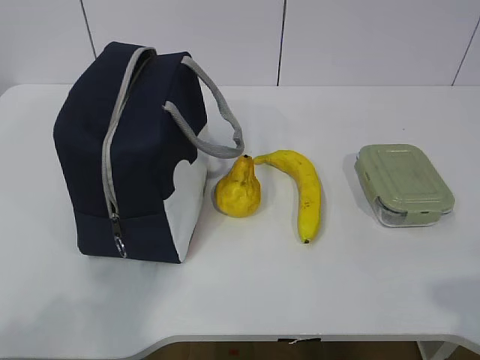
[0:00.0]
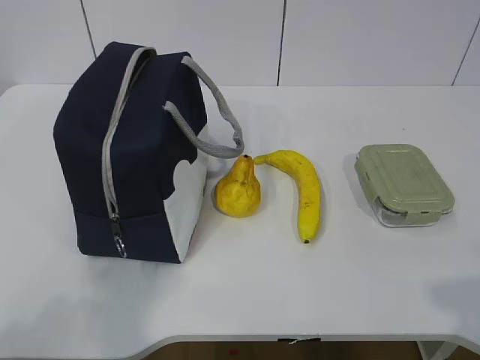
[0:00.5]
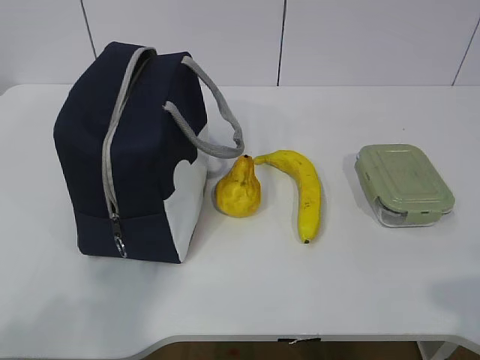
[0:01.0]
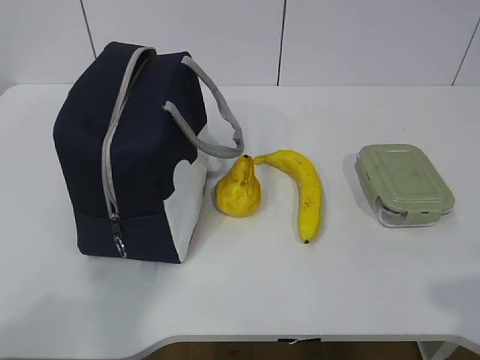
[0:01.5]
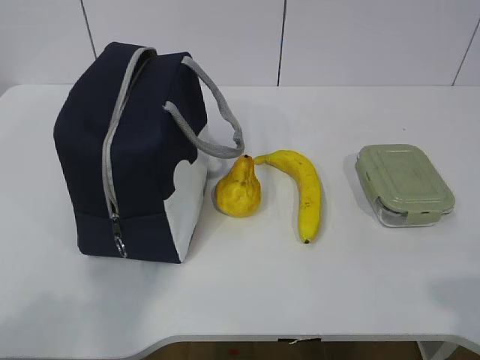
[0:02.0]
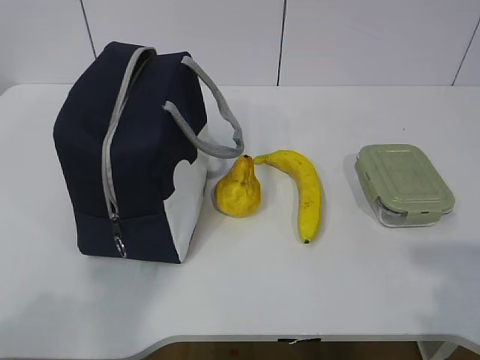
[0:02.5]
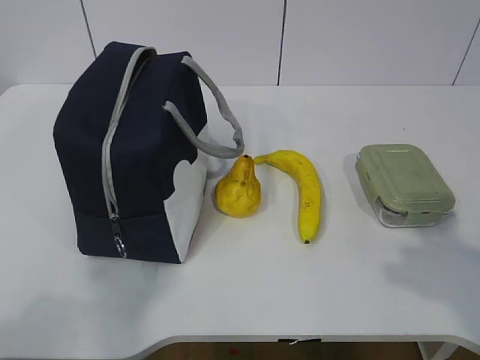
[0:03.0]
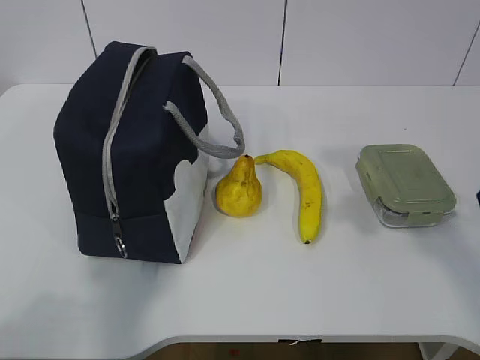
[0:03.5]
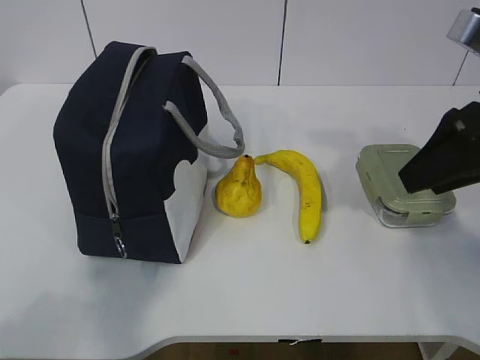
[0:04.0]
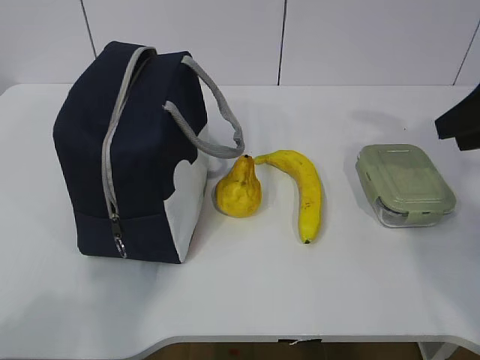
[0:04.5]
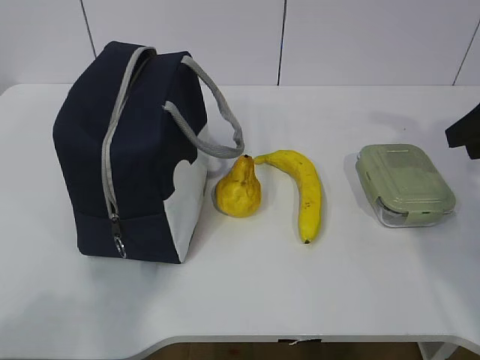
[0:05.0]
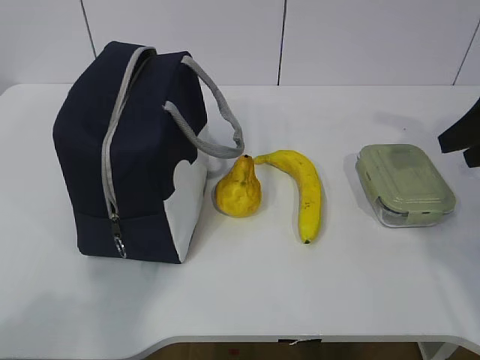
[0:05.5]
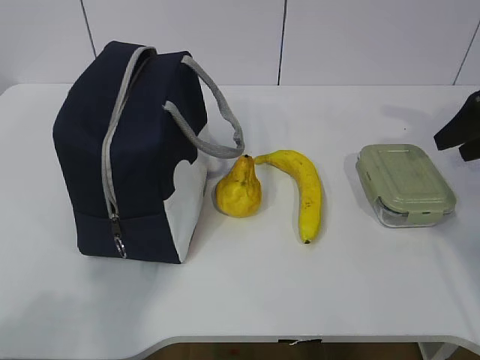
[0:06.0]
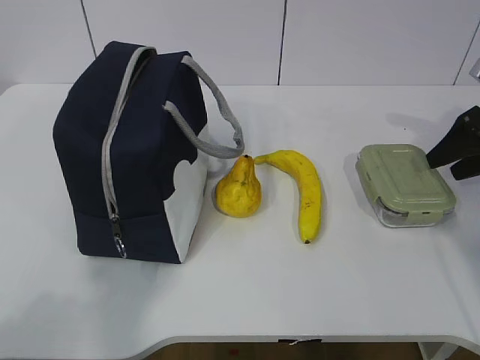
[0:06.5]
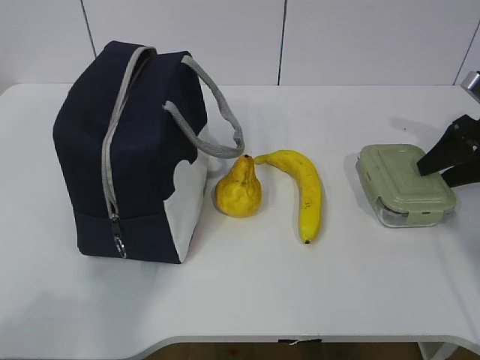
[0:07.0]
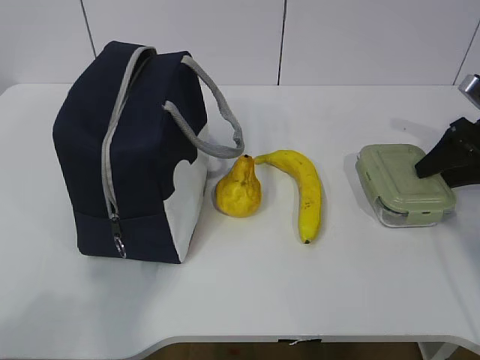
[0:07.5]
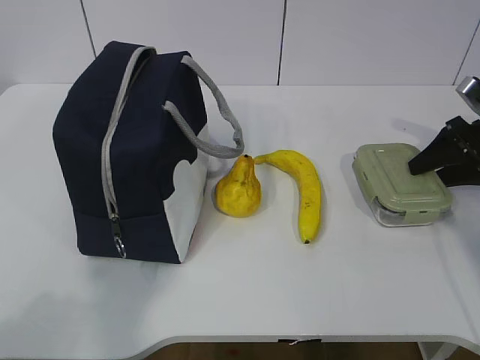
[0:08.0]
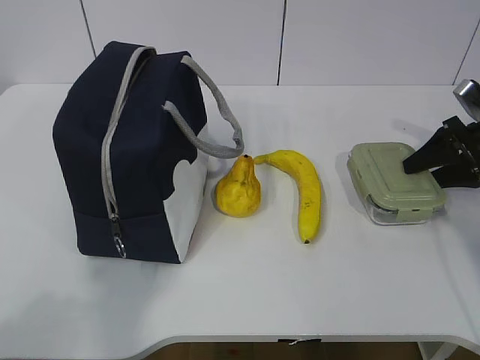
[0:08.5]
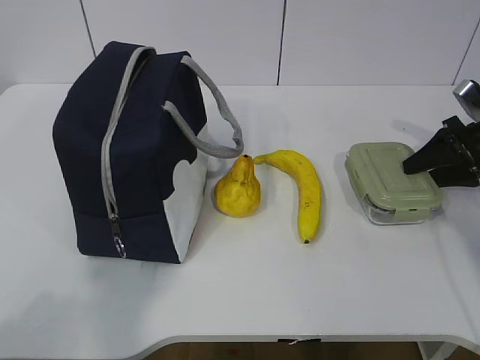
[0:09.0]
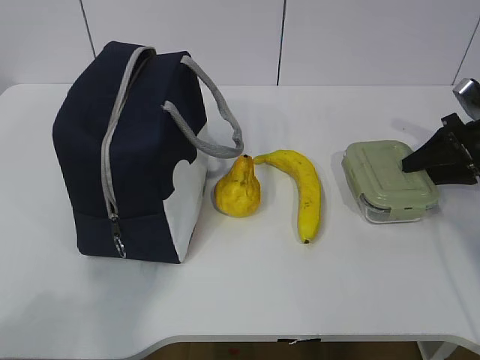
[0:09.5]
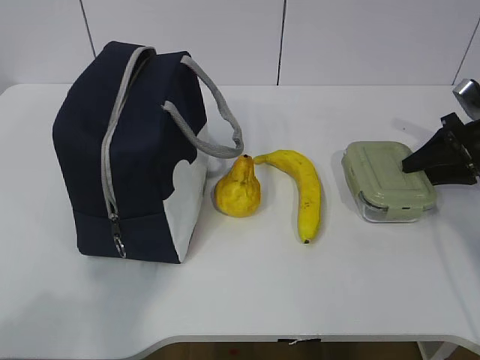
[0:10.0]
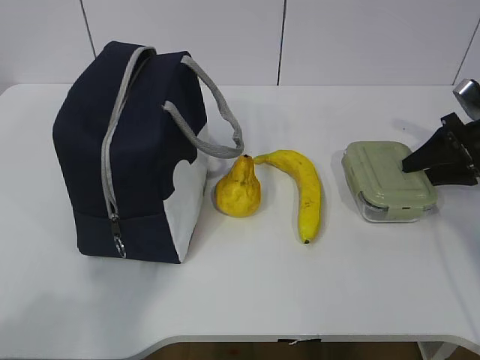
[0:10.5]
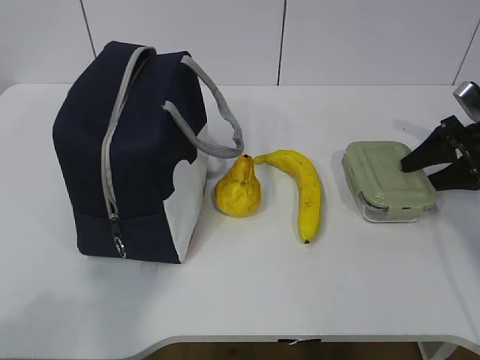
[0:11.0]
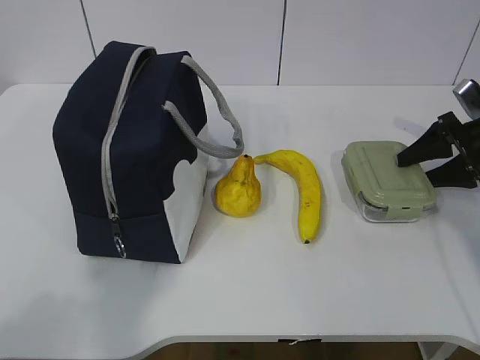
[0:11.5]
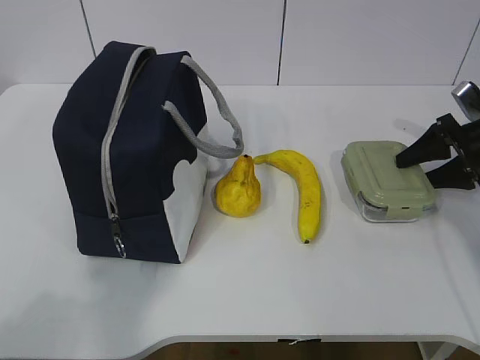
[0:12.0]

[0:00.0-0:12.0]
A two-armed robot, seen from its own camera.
2.0 to 4.0 s: The right gripper shifts approximately 25 cm forward.
4.0 to 6.0 s: The right gripper goes some 20 cm to the right, forward and downward.
6.0 to 8.0 s: The right gripper moves downward, roughly 5 cm.
8.0 to 10.0 s: The grippers make only small movements.
10.0 to 12.0 s: The right gripper opens up.

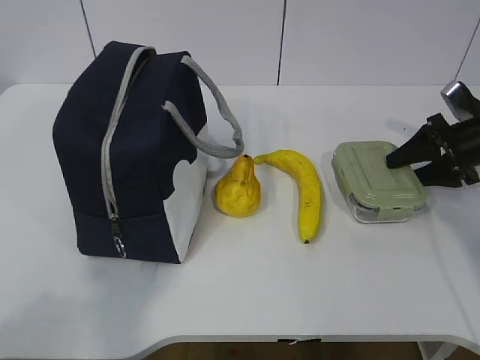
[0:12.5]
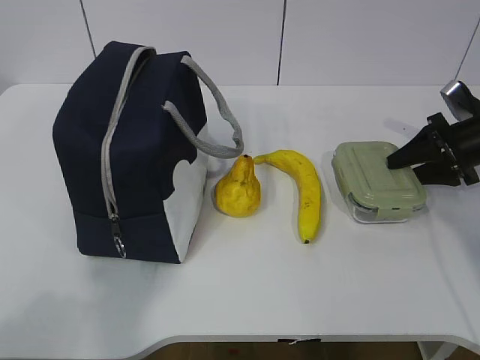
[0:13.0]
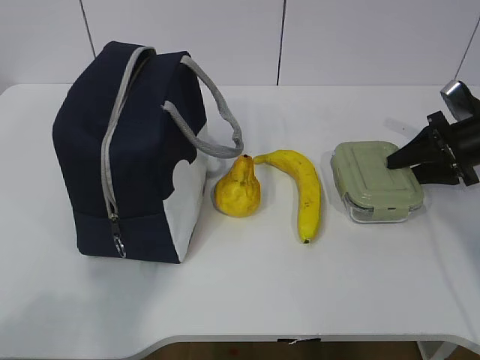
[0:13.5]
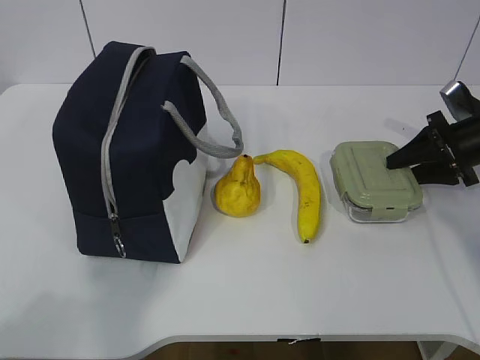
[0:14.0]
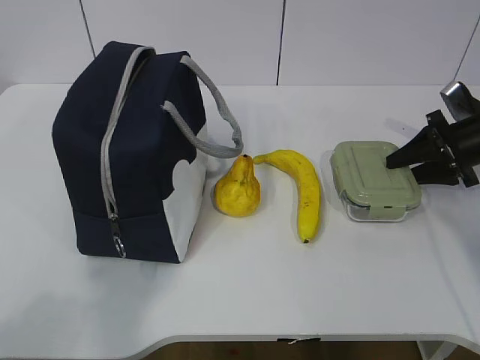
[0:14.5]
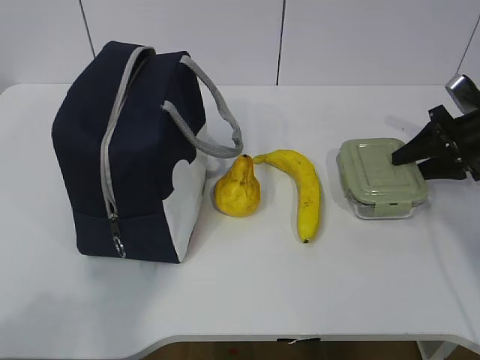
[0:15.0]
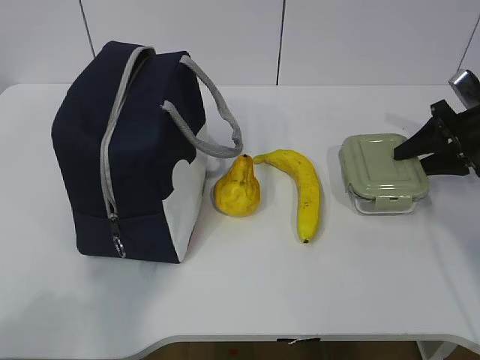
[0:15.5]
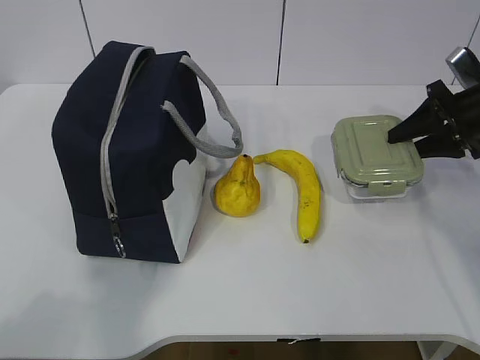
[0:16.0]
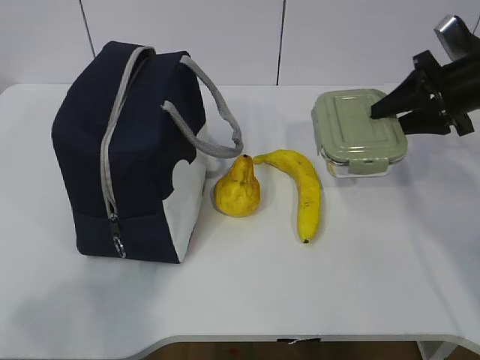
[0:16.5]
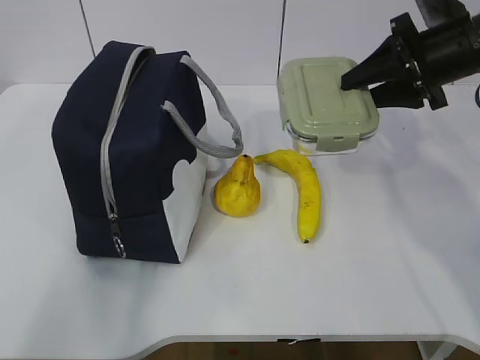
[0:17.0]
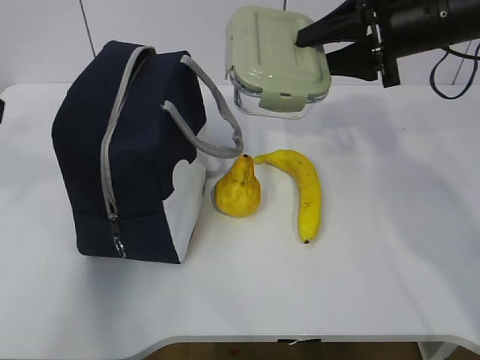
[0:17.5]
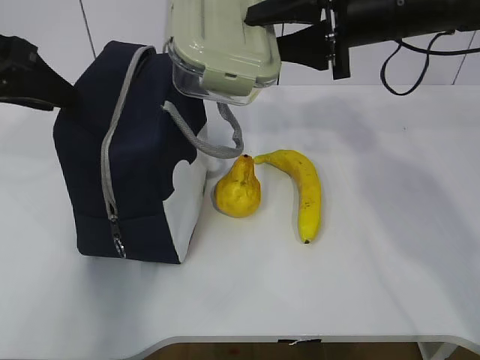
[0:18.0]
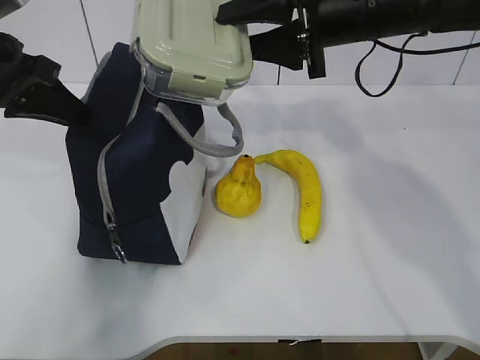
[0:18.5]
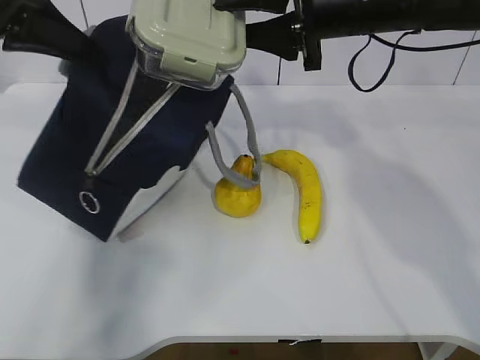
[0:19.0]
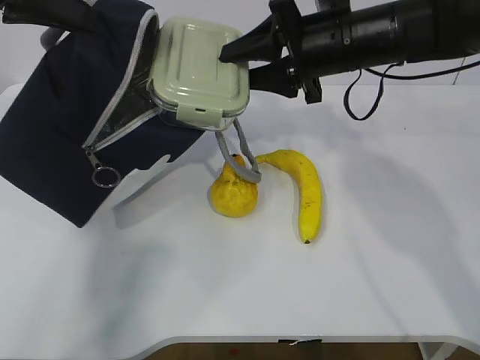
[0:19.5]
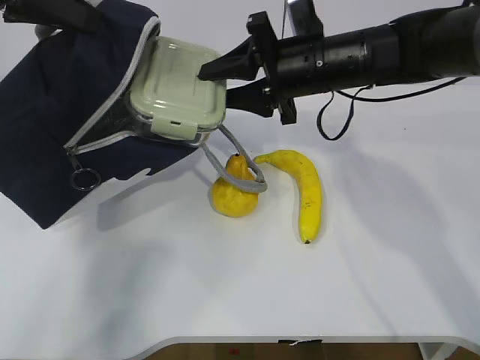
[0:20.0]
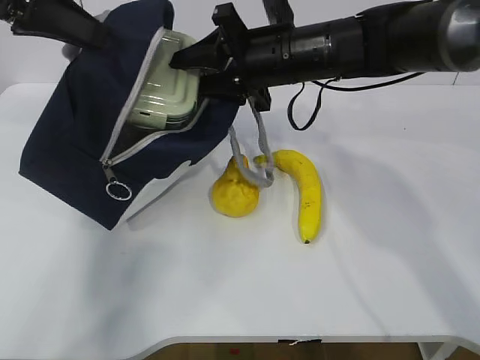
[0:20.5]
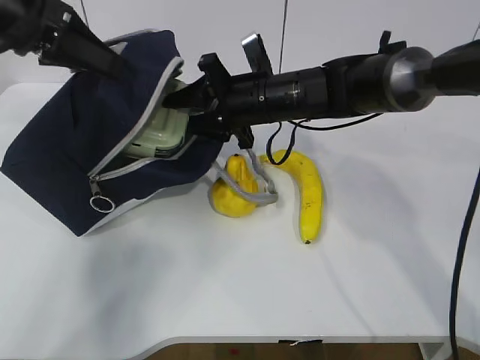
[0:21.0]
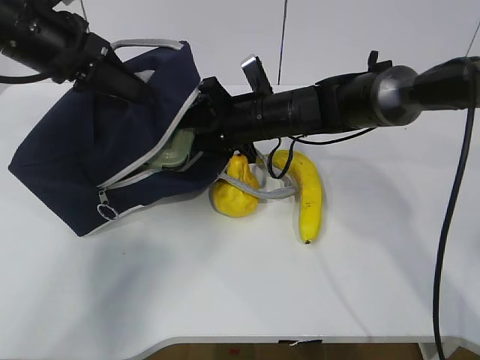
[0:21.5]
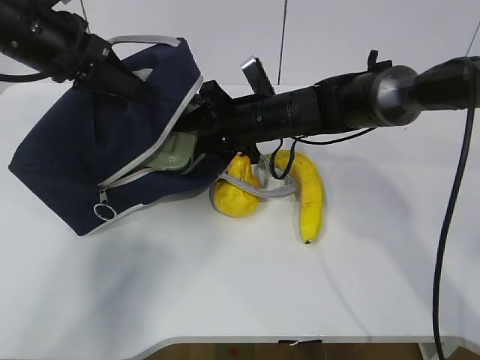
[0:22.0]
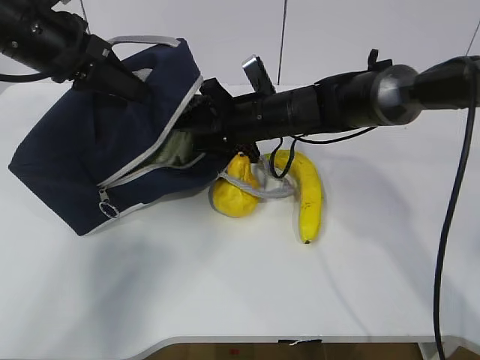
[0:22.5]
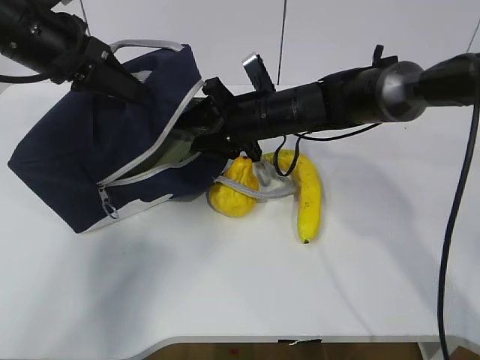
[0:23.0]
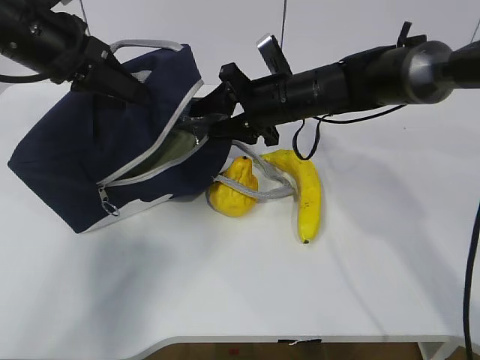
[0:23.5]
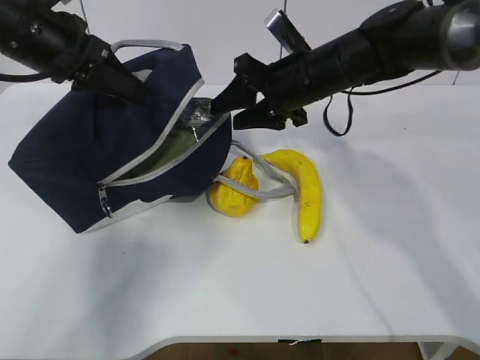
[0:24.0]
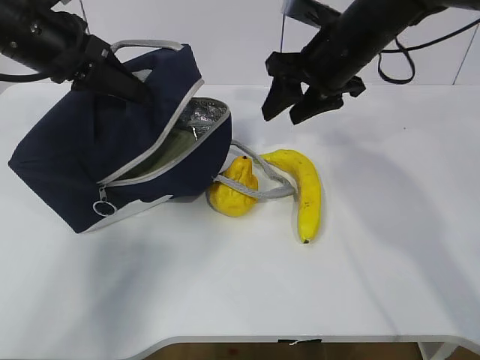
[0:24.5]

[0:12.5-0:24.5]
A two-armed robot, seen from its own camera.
Step, 16.5 to 19.0 s: Place it into the bag with your right hand.
Step, 19.5 to 22.0 s: Grab the banana with your right hand.
12.5 to 14.5 s: Neither gripper changes place.
14.5 to 16.5 s: The right gripper heads upward, covering approximately 10 cm.
16.5 to 18.5 s: The right gripper travels to the left and upward by some 20 cm. Meanwhile the left gripper travels forward by approximately 30 cm, and closes its fingers.
18.5 to 20.5 s: The right gripper shifts roughly 10 cm downward and to the left, while the left gripper shifts roughly 5 cm upward.
20.5 to 22.5 s: The grippers both shift downward by about 10 cm.
22.5 to 24.5 s: The right gripper heads upward and to the right, covering approximately 15 cm.

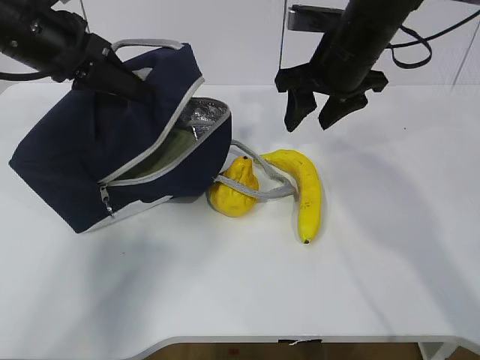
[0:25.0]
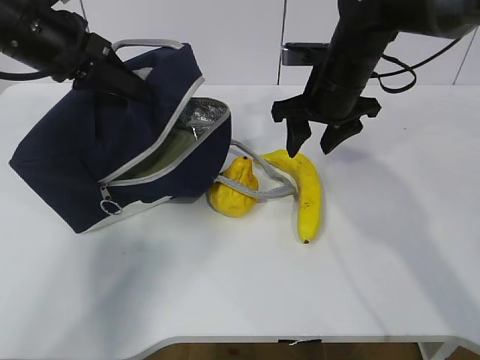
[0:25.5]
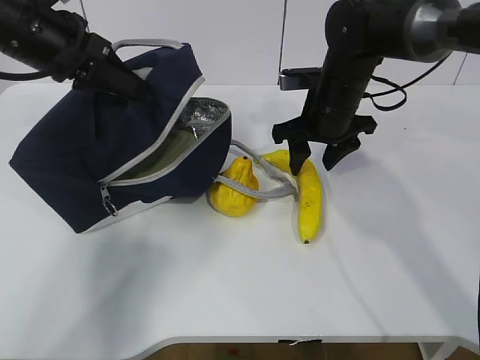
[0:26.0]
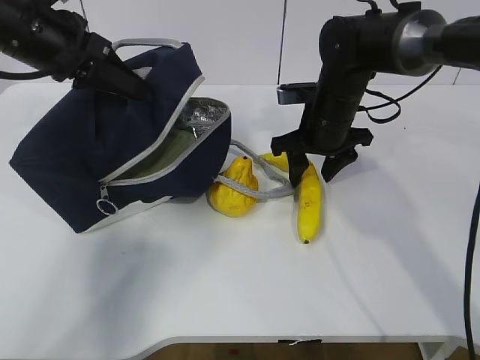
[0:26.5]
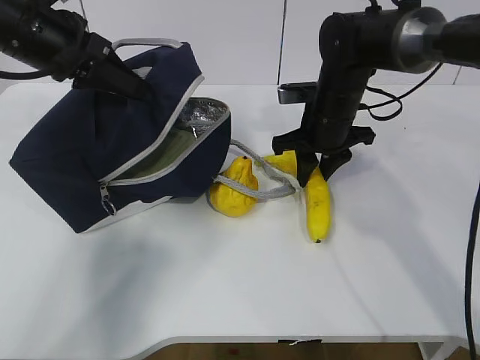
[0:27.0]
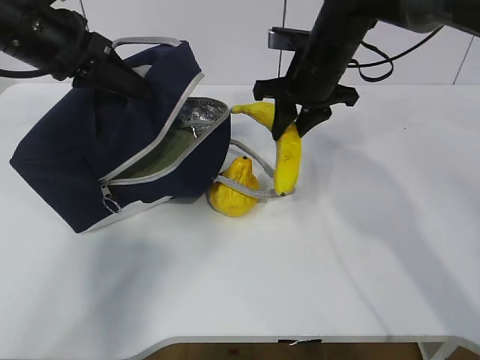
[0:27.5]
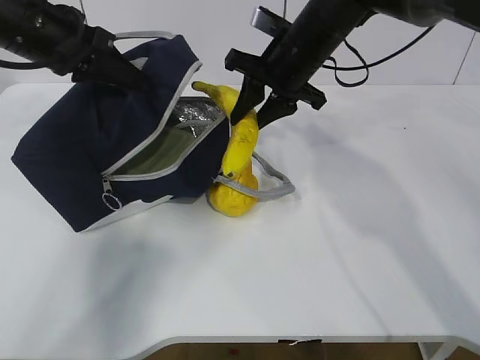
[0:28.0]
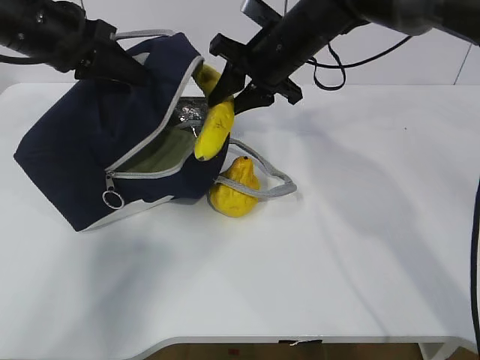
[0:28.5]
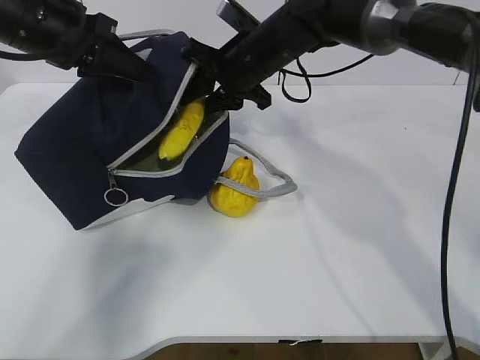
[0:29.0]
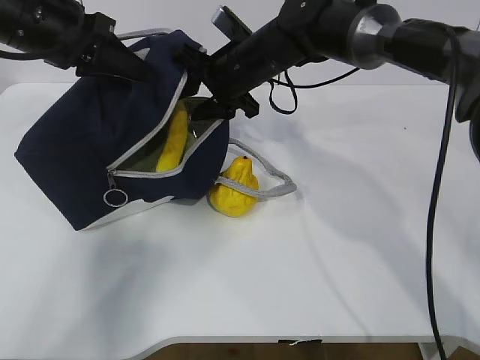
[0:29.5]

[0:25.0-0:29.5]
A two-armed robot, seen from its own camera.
Step, 25.0 to 29.0 s: Grab the pear with your right hand.
25.0 to 27.0 s: The right gripper shifts about 10 cm downward, and closes its fingers.
27.0 to 29.5 s: The right gripper travels to the left and upward by some 10 cm.
